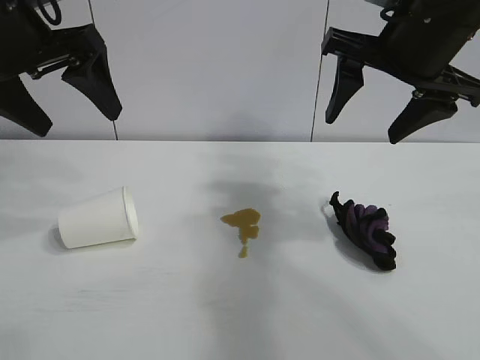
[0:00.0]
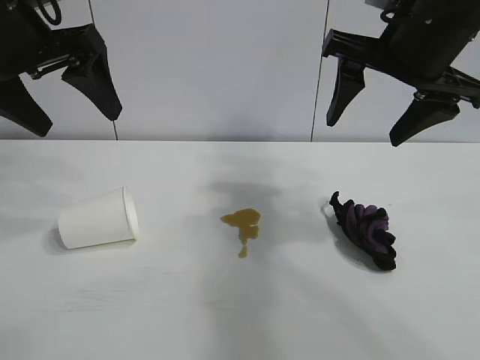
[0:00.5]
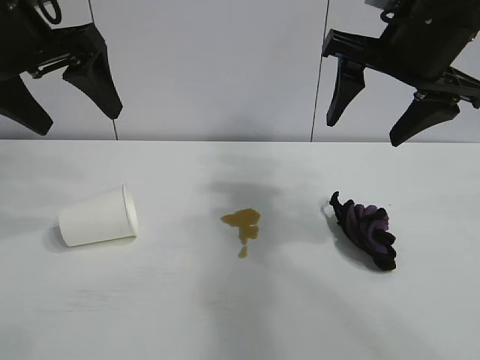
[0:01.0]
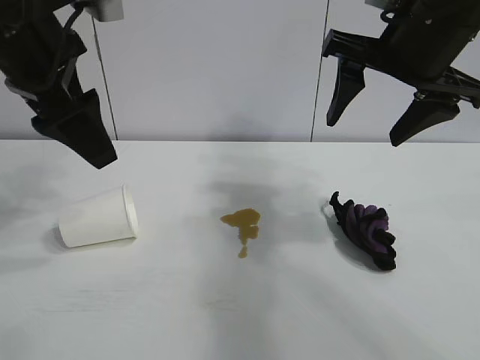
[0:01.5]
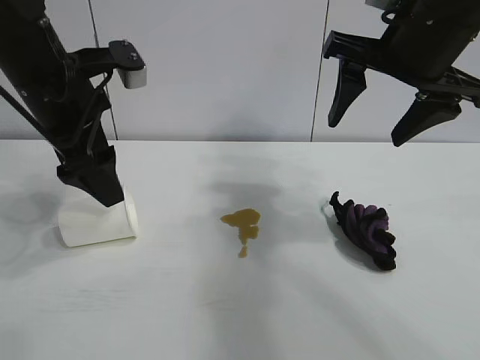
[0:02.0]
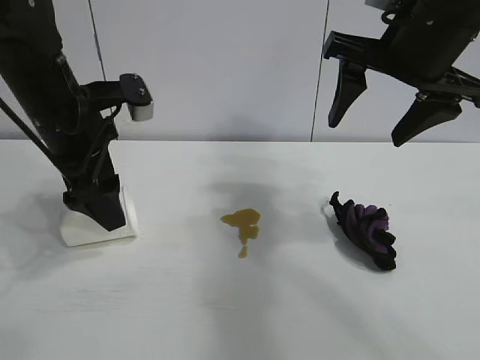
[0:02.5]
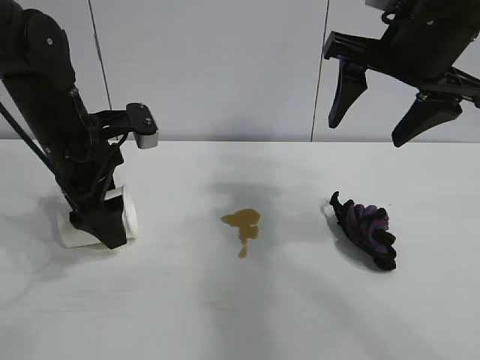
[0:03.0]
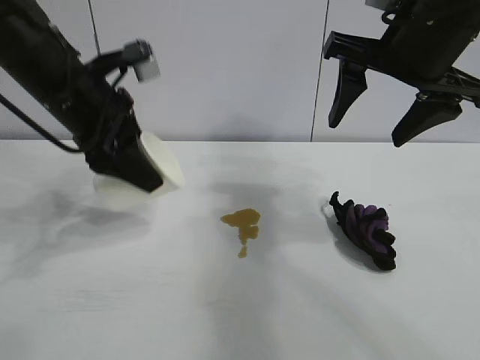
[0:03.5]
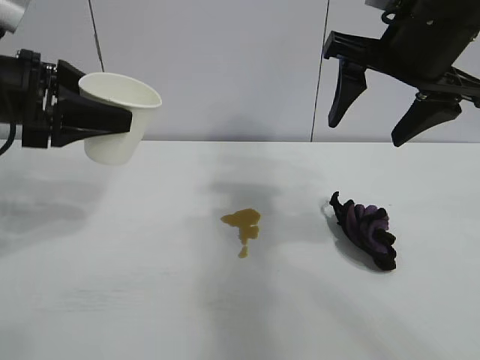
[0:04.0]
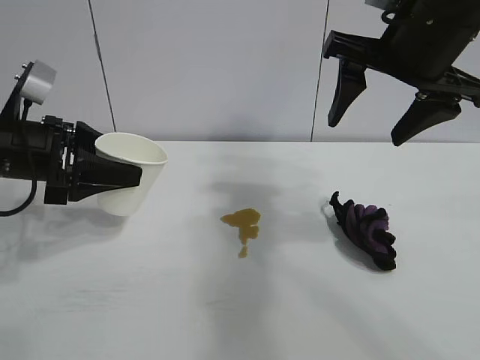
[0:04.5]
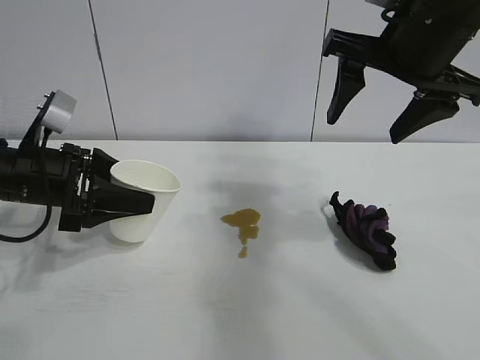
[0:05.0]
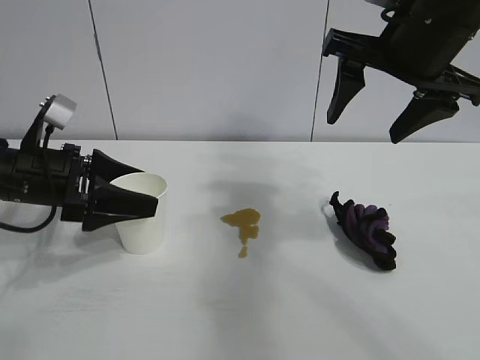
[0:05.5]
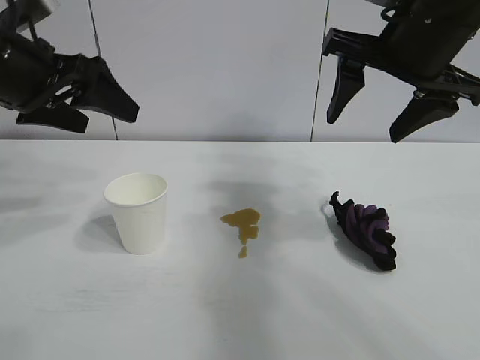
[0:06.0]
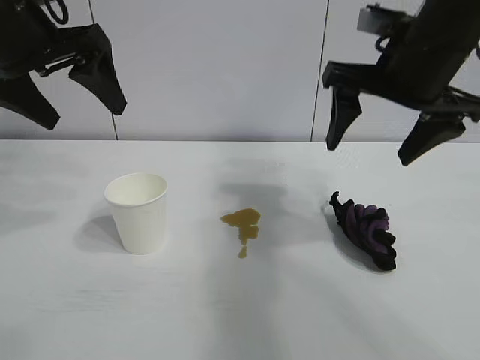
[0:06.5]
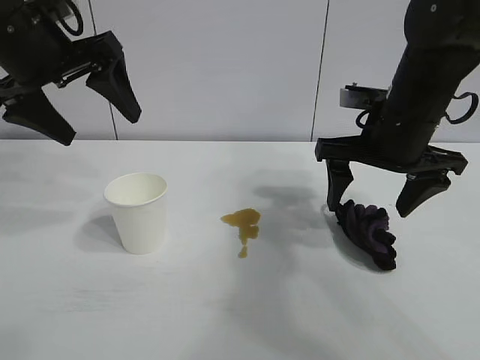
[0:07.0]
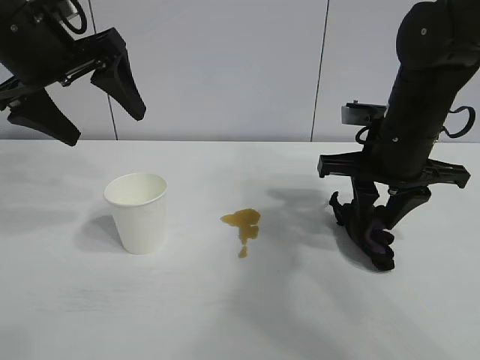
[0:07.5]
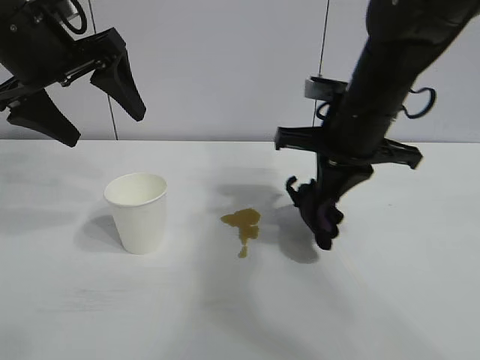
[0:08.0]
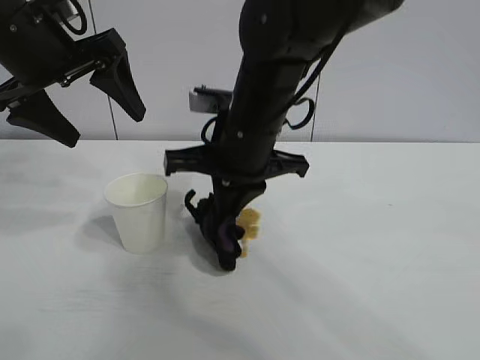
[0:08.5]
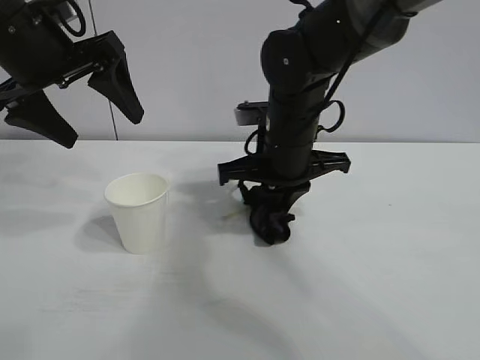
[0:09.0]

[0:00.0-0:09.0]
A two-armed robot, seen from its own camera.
Task of the whole recording: the left gripper pick up the fallen cup and place it upright, the right gripper grasp the black rag and wipe the stain on the table, the right gripper put the black rag back in its original position.
Step, 0:01.5 to 0:03.0: Grasp the paper cup with left gripper.
Step, 0:03.5 to 0:05.0: Stand the paper cup upright with left gripper.
Step, 0:05.5 to 0:07.5: Grasp the rag with right gripper.
